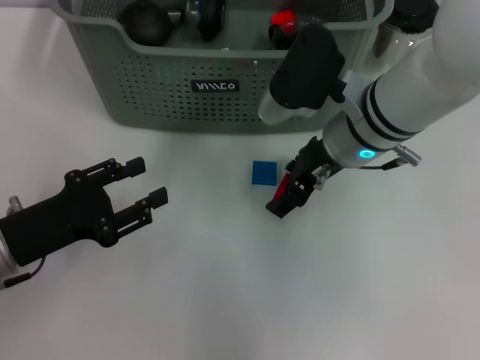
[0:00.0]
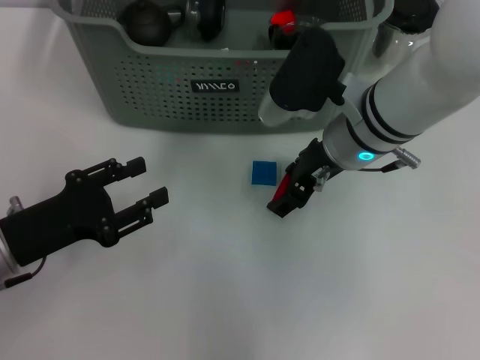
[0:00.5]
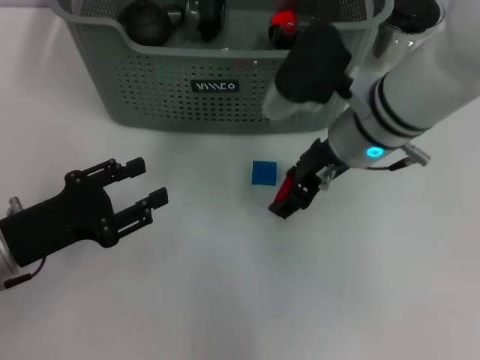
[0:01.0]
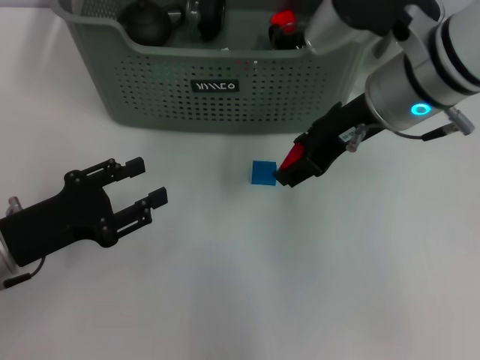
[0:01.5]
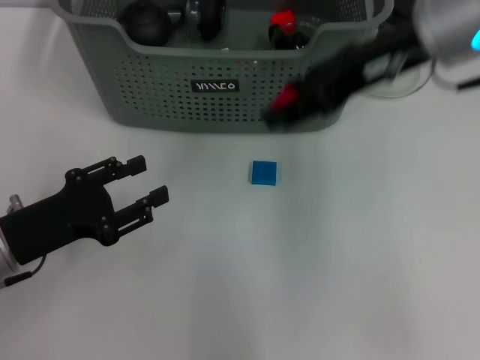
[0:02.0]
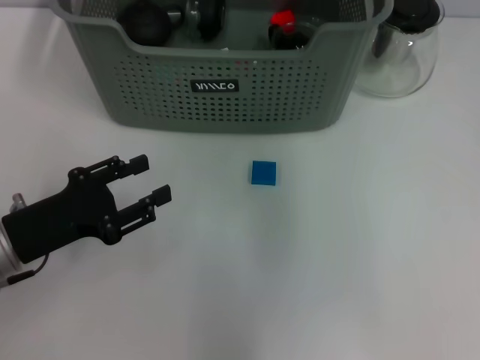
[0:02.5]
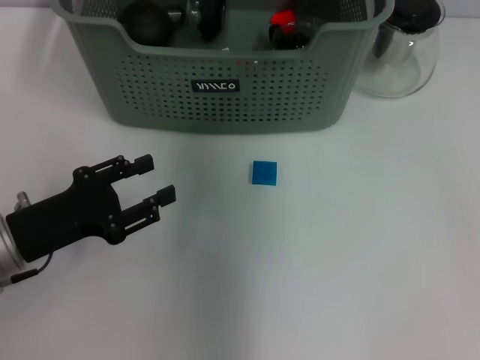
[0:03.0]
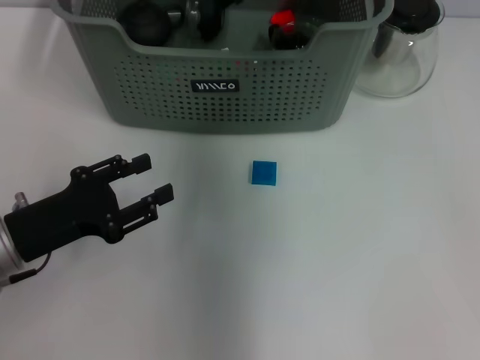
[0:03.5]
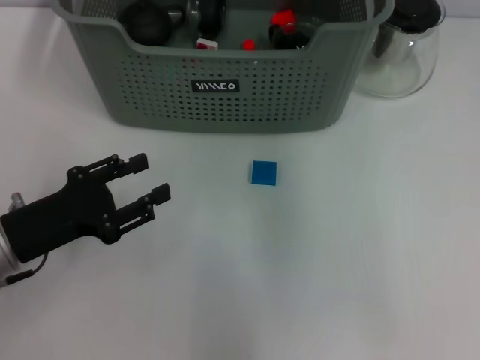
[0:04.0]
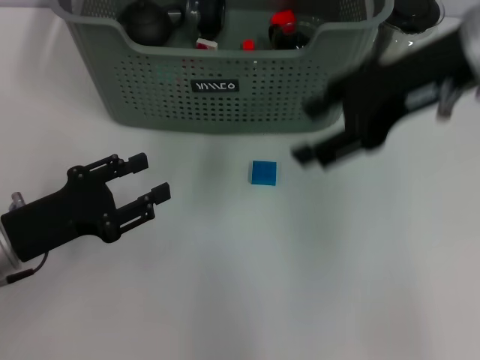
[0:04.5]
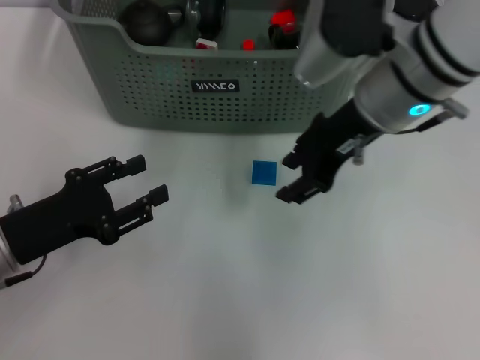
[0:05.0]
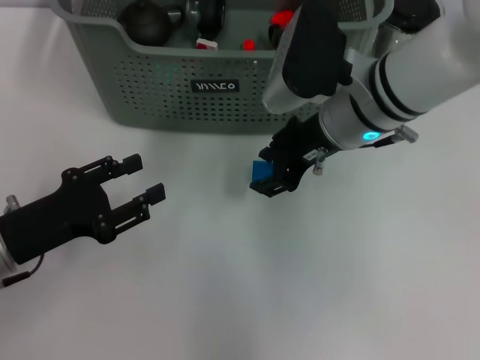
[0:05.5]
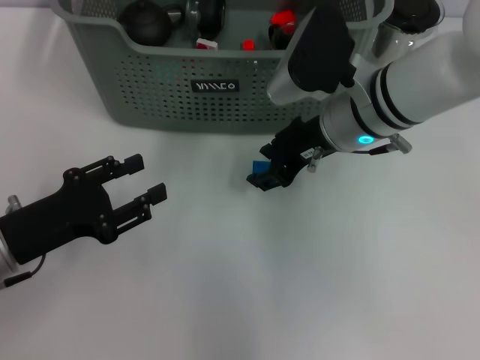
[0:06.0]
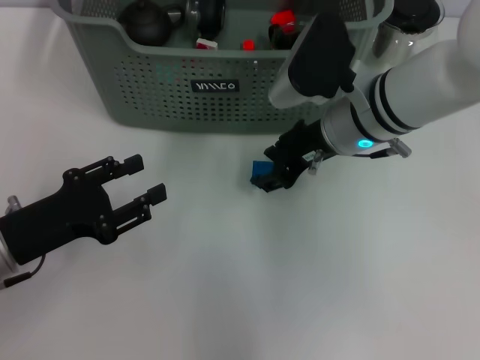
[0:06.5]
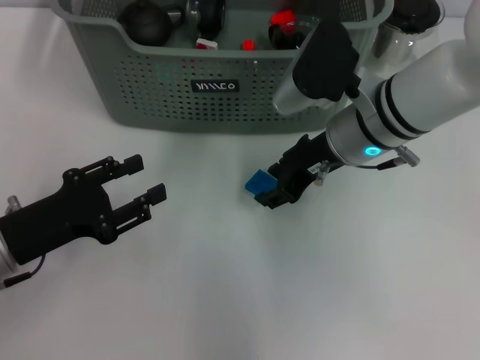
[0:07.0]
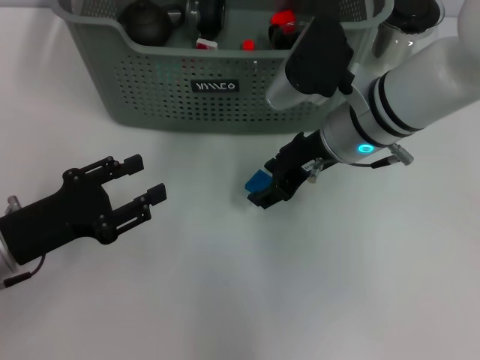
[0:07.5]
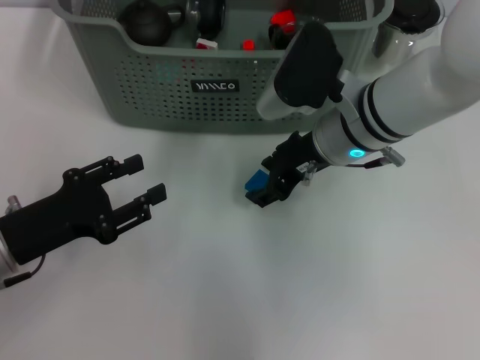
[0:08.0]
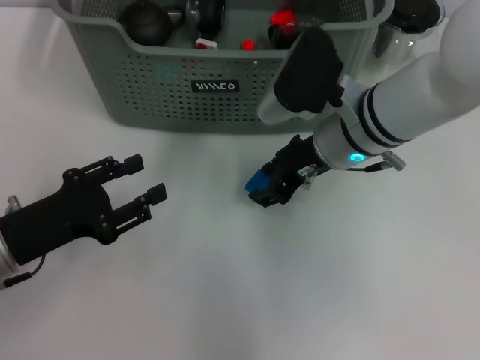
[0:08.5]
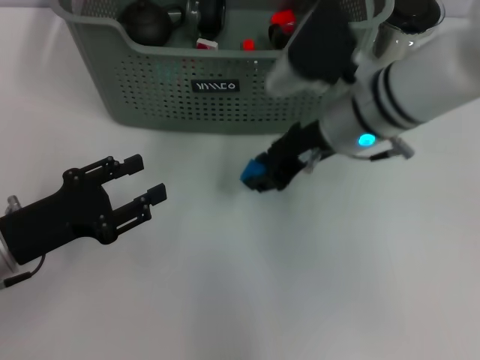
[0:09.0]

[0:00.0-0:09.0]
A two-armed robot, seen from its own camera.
Task of the whole recording: pick up the teacup on the table and place it into the storage bin, pick up the block on the table and place it into the storage bin.
Step, 0:01.0 to 0:03.5: Place the red block in the storage box with right gripper.
Step, 0:04.0 to 0:08.5: Grasp the light blue block with right gripper.
0:00.0 to 0:02.0: The right gripper moves upward and to the right, approximately 15 cm.
0:02.0 to 0:04.5: The right gripper travels forward and back again, some 10 cm each way.
0:04.5 to 0:07.0: The right gripper moves downward and to the left, approximately 15 cm.
0:07.0 to 0:09.0: The grippers make only small movements.

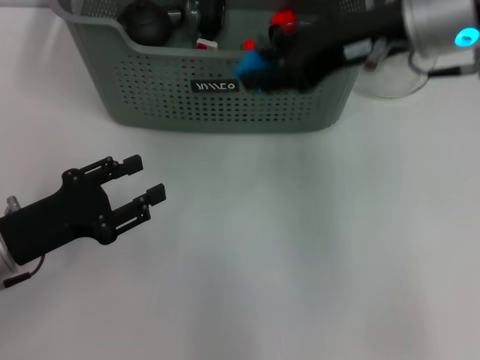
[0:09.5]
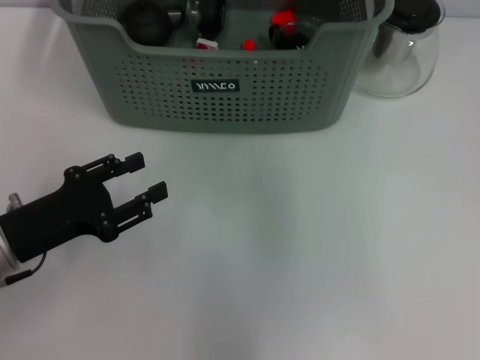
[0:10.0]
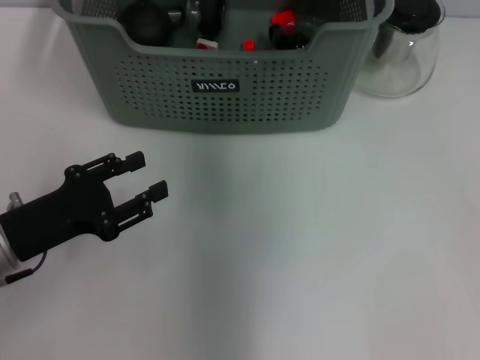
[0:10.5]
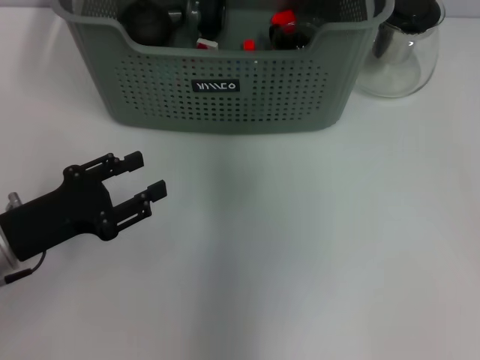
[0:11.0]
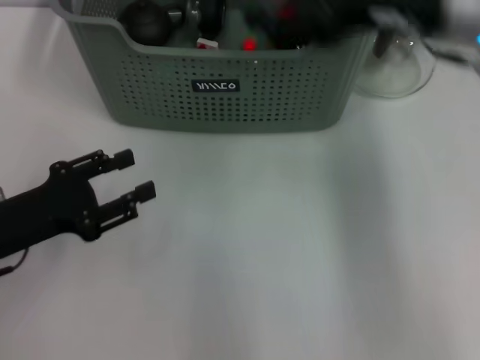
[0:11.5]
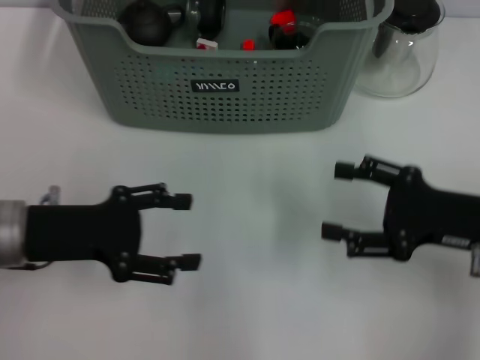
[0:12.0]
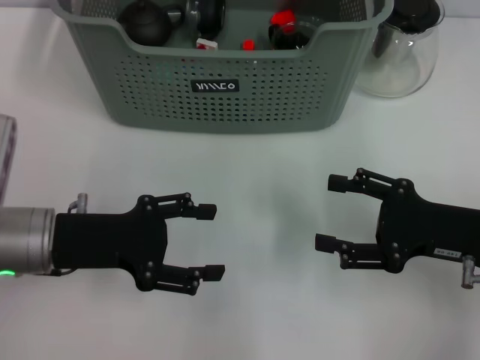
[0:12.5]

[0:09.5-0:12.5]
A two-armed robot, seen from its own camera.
Task of the whole recording: pick up the teacup on the table and place it into the storage bin, pick up the block on the table and place it into the storage bin.
0:09.5 to 0:11.0: The right gripper travels forward and to the left by approximately 15 cm.
0:11.0 to 0:12.5: The left gripper ends up about 5 cm from where it was. Meanwhile the right gripper travels backward, to the right and downward by about 35 cm.
